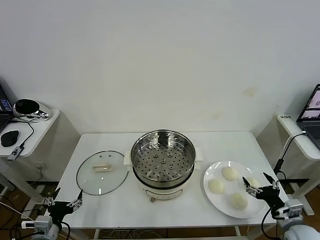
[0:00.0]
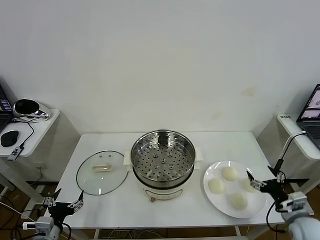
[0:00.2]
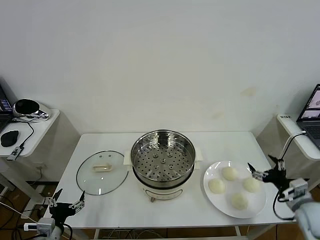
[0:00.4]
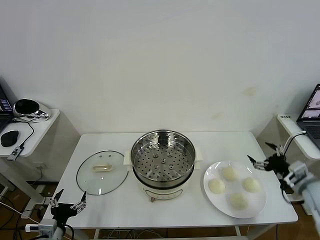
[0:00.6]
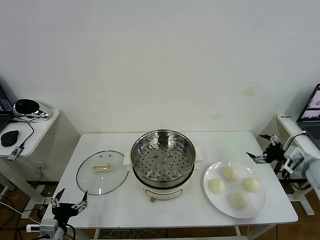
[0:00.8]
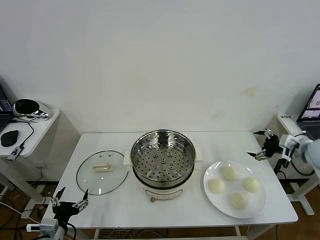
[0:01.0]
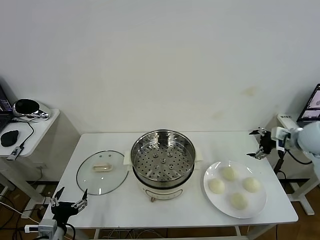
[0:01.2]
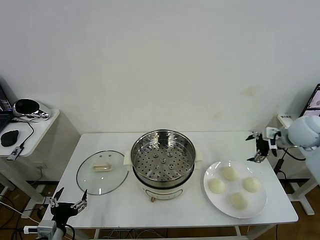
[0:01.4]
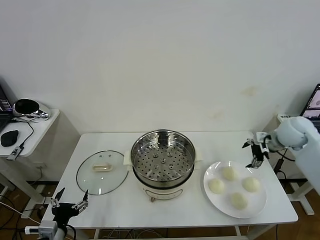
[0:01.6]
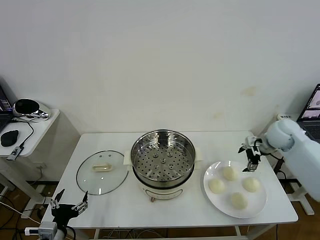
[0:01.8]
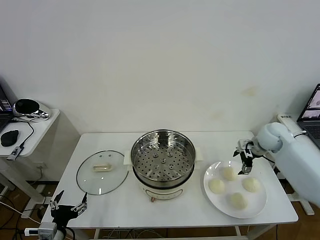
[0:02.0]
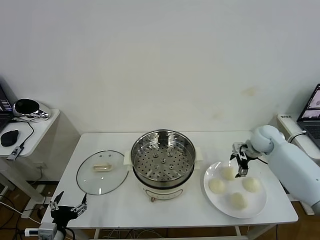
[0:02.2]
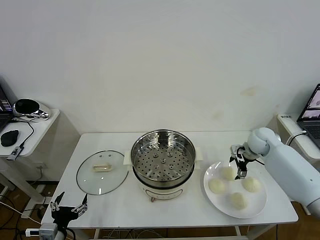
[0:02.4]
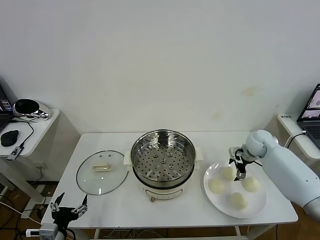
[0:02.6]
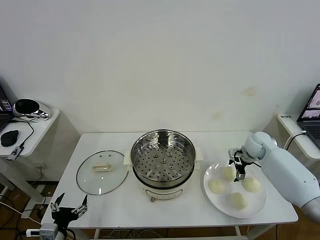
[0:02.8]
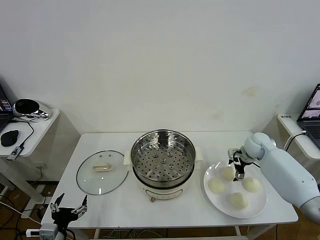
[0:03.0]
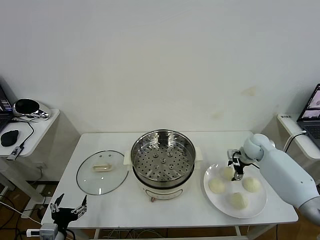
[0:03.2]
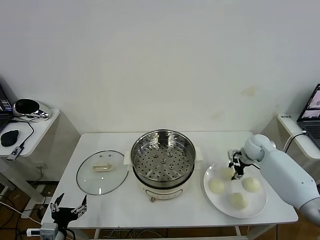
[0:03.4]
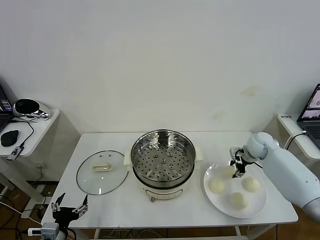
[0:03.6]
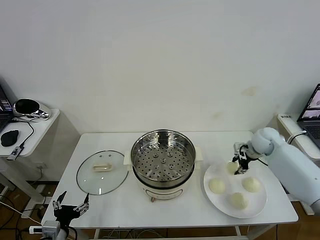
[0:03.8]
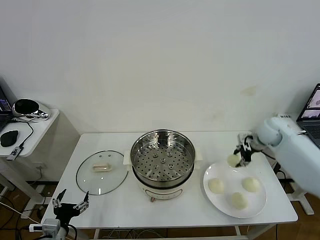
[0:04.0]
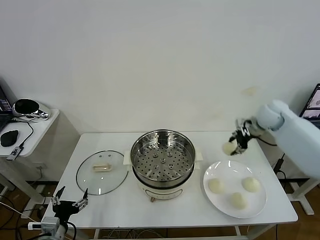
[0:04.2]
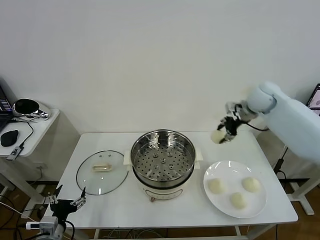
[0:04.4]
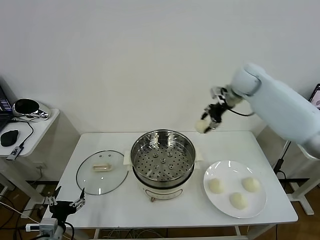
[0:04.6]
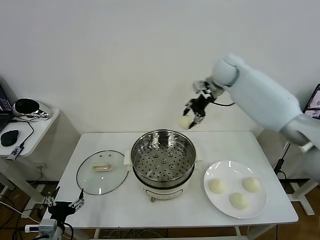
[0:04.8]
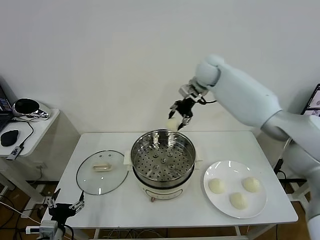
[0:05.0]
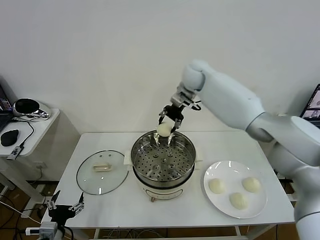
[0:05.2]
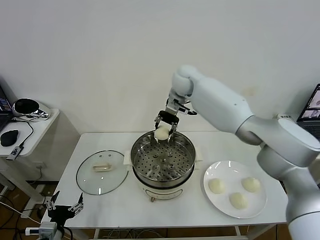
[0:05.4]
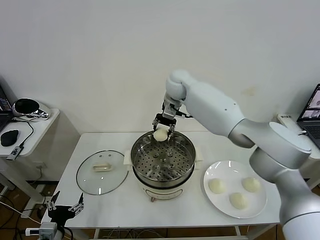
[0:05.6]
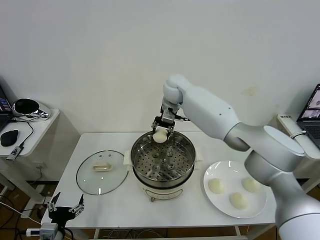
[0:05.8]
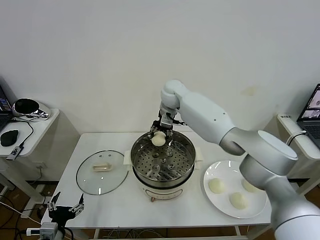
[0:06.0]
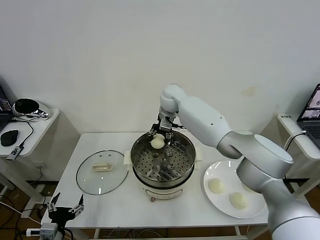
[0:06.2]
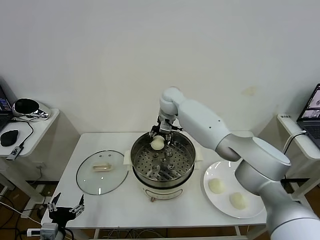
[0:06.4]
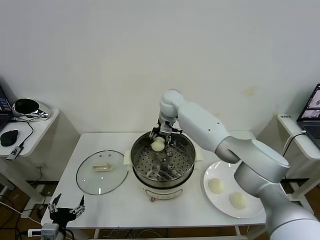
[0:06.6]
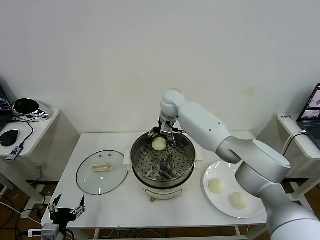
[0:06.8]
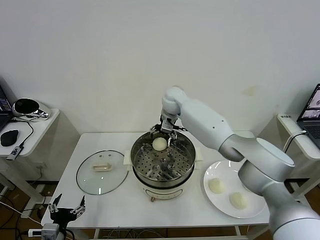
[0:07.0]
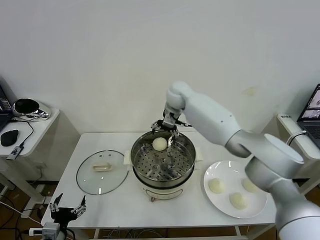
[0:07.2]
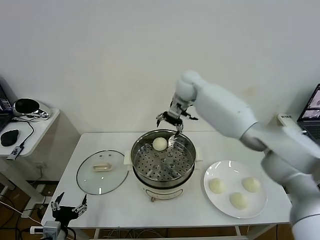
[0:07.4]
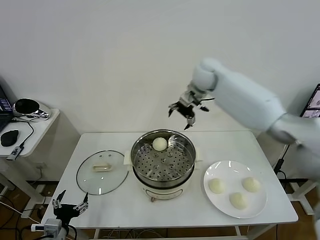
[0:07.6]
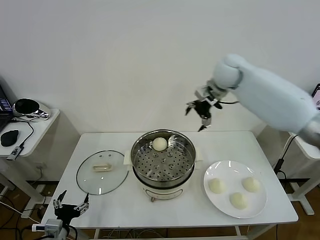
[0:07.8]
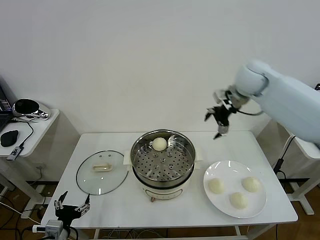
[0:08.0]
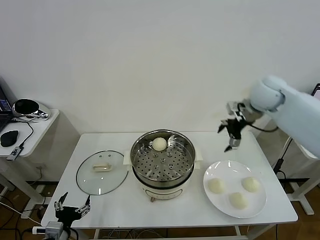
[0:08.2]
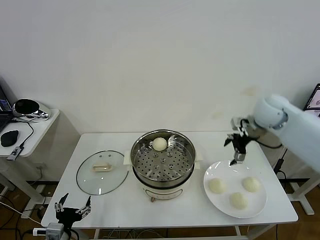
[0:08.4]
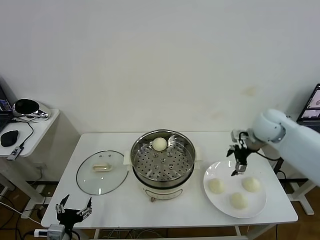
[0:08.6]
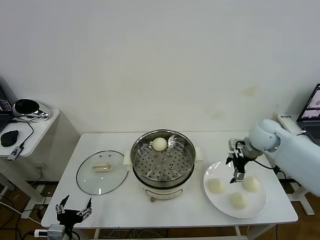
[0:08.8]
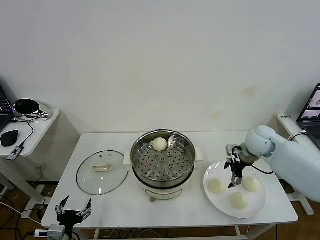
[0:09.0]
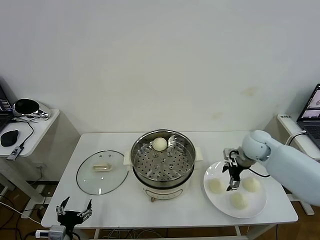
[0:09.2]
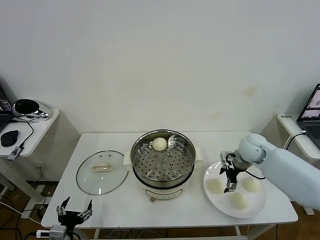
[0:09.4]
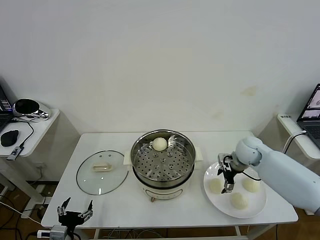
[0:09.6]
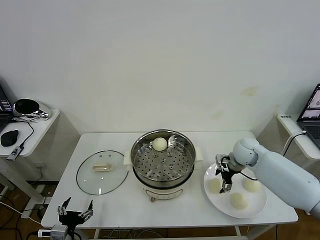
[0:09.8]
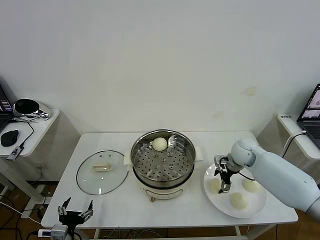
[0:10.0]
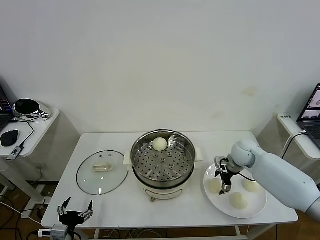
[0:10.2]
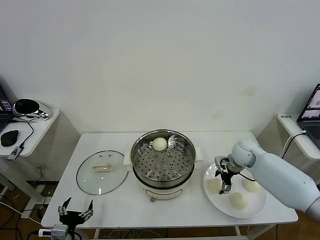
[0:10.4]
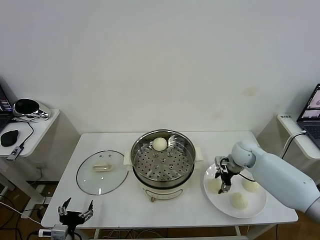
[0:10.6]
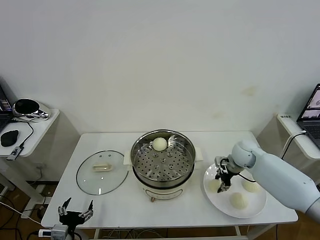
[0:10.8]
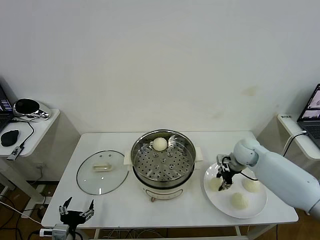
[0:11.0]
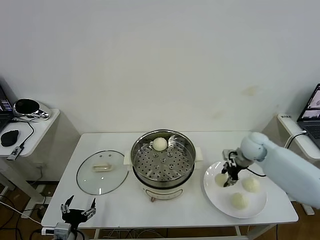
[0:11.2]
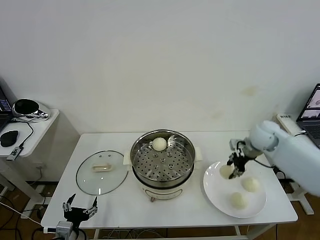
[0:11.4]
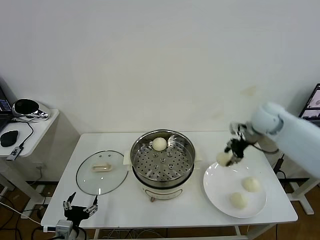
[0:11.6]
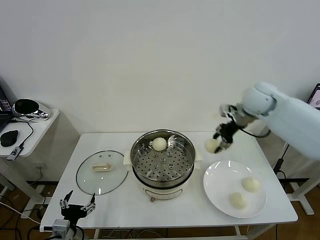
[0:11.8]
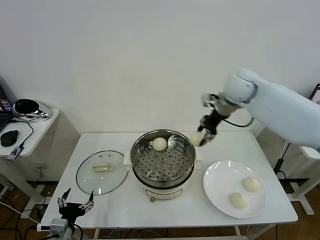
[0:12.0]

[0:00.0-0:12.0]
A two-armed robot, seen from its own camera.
Task of the whole recording: take steamed baozi put them in steamer then cover it.
Step, 0.0 to 3.4 s: Grasp the baozi in the plate with right gripper.
Step, 3.6 to 7.0 s: Place the baozi on the steamer with right gripper.
Step, 7.2 to 10.8 s: Grasp the baozi in the plate with right gripper.
1.6 to 3.0 s: The right gripper goes some 10 cm downward.
3.0 to 4.4 s: The right gripper moves upward, about 25 cm, and closes its fingers.
4.4 to 6.0 s: The right gripper moves to the left, roughly 25 cm.
6.0 to 7.6 s: The right gripper travels to the right and upward by roughly 20 cm, and opens its fingers.
7.6 to 9.0 s: The right gripper heads downward, to the right and backward, covering about 30 cm.
9.0 to 10.4 s: The right gripper heads downward, covering approximately 5 cm.
10.4 to 12.0 s: The right gripper is displaced upward and to the left by some 30 cm, and closes.

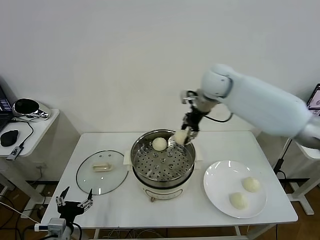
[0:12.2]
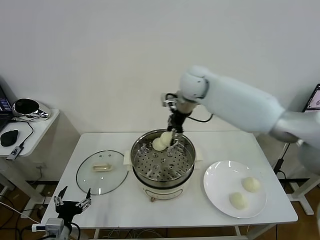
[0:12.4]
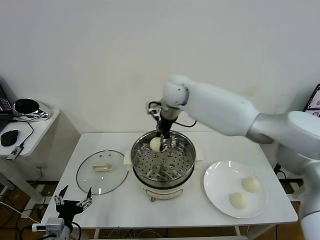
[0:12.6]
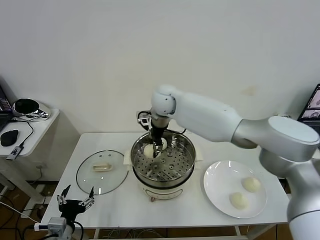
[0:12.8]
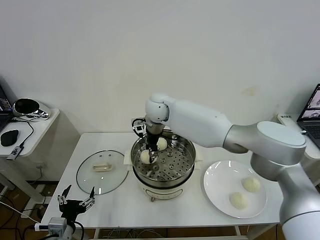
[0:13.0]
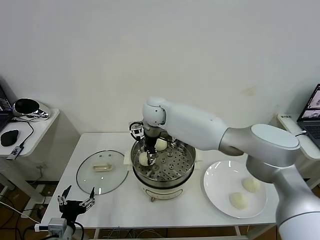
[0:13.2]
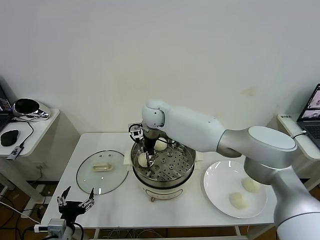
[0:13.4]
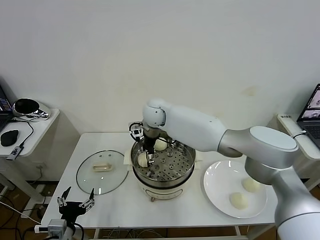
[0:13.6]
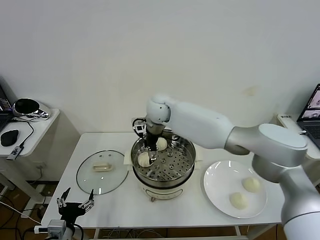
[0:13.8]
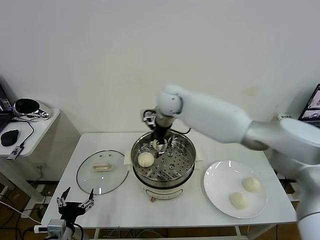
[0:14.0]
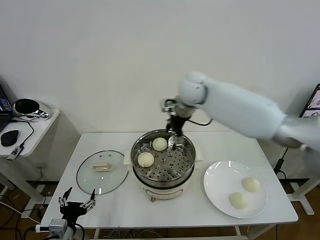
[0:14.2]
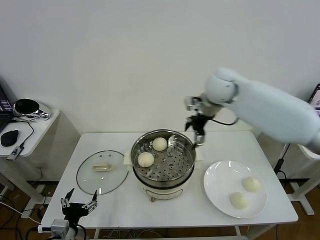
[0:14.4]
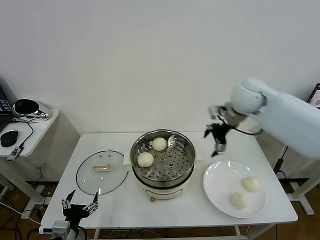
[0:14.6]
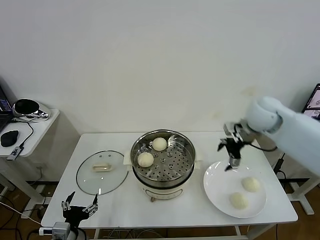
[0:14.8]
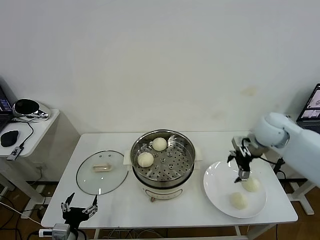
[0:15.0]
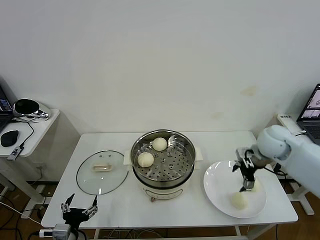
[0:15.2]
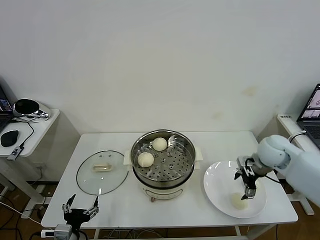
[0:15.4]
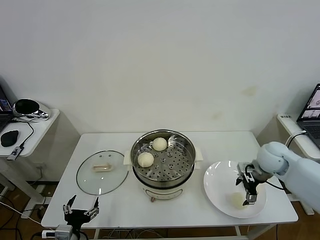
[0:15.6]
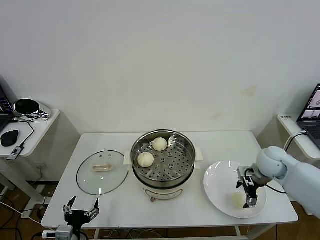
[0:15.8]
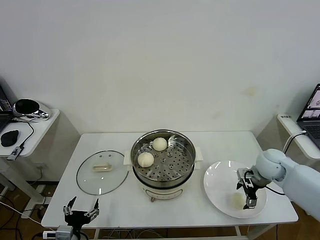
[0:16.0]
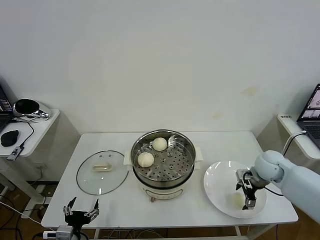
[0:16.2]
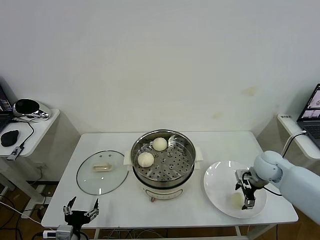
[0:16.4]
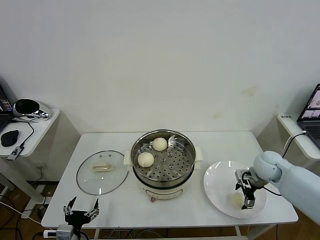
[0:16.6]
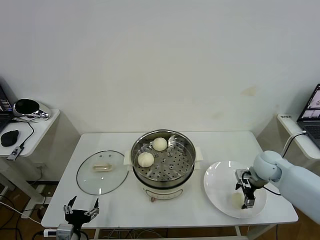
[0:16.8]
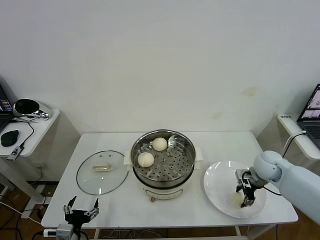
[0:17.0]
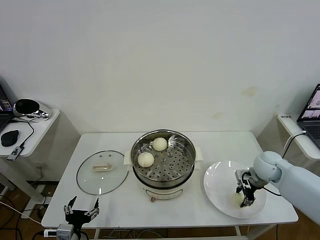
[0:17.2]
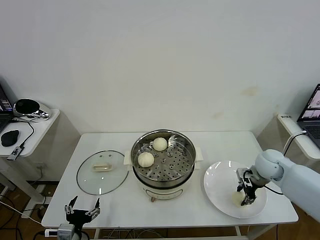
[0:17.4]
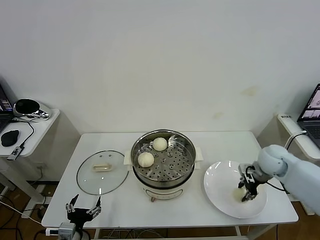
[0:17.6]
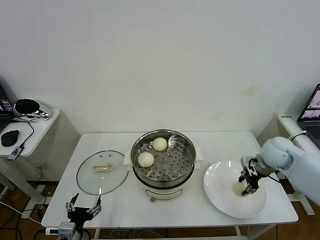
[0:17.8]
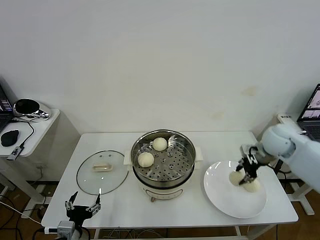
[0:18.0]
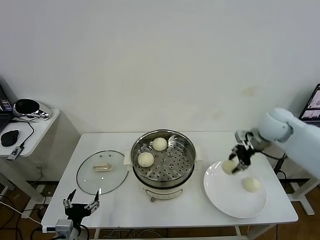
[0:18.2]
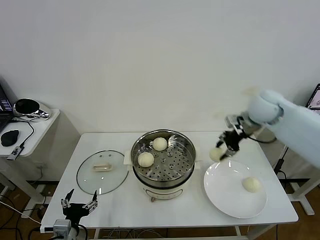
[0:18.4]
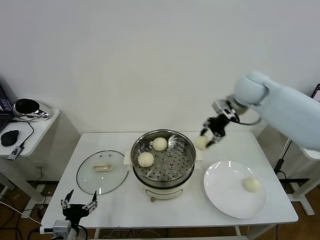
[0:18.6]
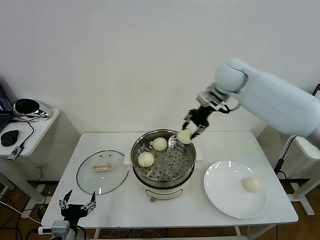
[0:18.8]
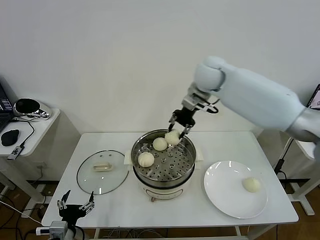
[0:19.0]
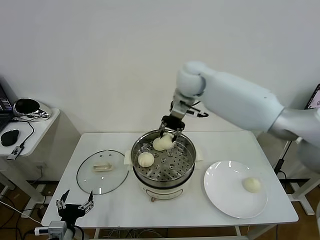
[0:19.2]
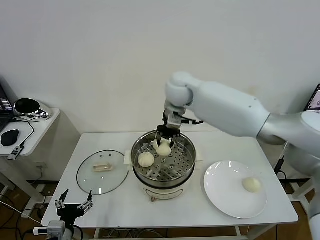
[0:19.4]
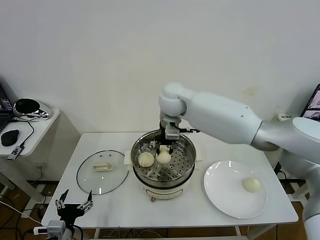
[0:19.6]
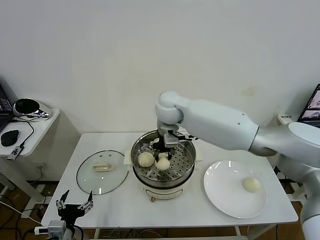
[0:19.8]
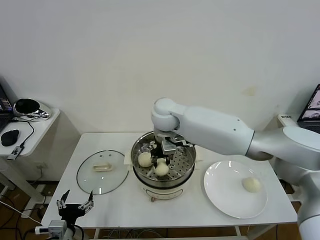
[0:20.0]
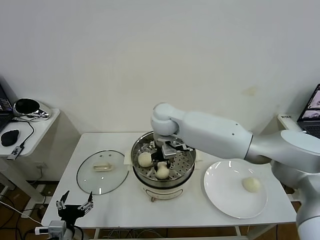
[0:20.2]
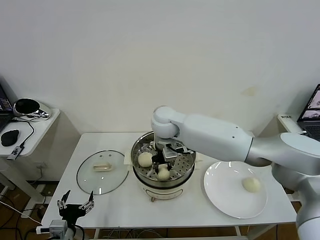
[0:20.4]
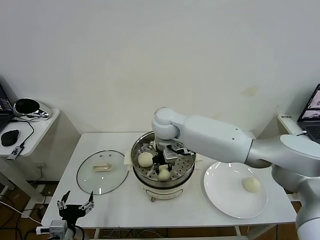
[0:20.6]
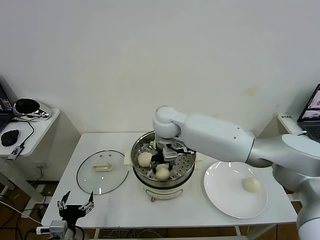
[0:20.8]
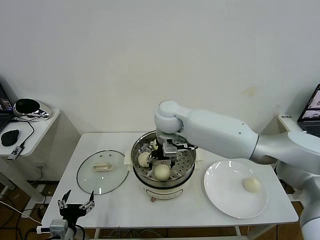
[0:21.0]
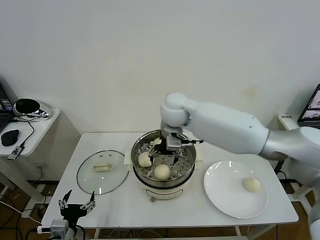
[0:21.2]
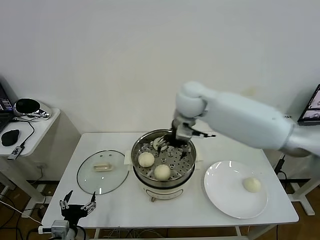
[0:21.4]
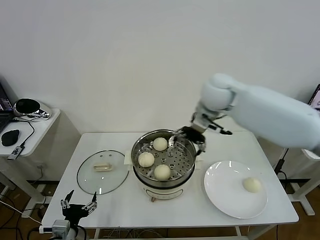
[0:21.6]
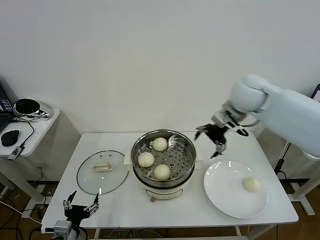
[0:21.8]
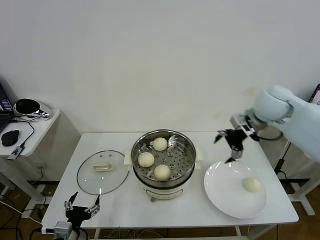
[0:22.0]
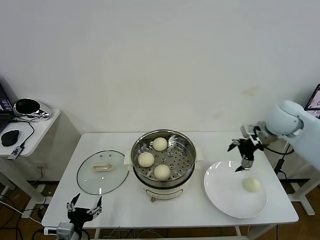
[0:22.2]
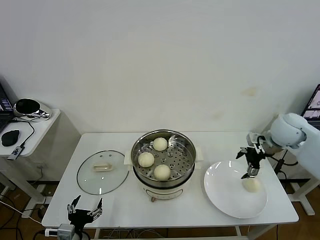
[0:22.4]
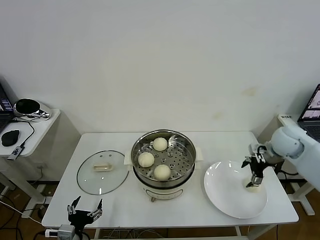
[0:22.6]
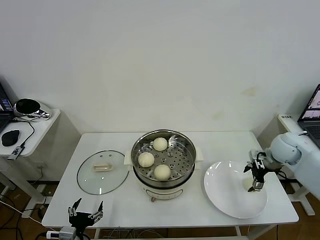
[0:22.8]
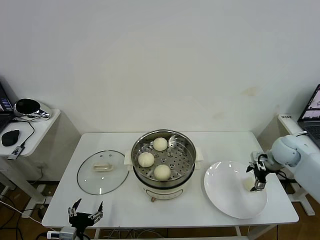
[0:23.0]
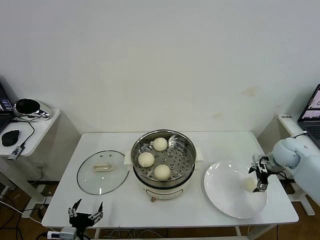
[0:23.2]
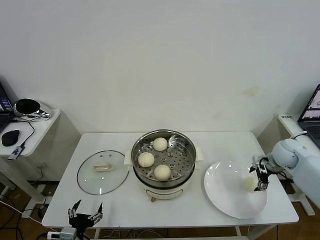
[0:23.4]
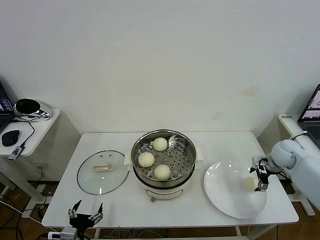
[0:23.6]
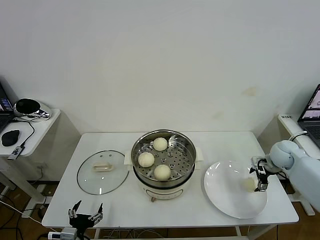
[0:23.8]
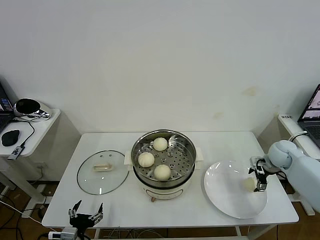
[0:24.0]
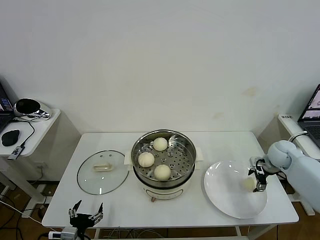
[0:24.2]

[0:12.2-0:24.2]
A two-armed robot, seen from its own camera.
Task of the whole recording: take steamed baozi put them in steamer then cover it.
Step, 12.2 to 13.8 s: Place the baozi on the steamer with right gripper.
Step, 14.0 to 17.2 s: Grasp the baozi in the plate with right gripper.
Step, 17.4 to 21.0 s: Place the baozi on the steamer with right gripper.
12.2 to 13.8 s: The right gripper travels to the left and downward by some 15 cm, and opens its fingers.
13.8 to 15.2 s: The right gripper travels to the right by some 35 cm.
15.2 to 16.6 s: The right gripper heads downward, covering about 10 cm.
16.6 to 18.2 s: The right gripper shifts about 15 cm upward, and closes up.
18.2 to 19.8 s: The right gripper goes about 30 cm to the left.
19.8 to 21.2 s: The right gripper opens.
21.2 to 22.6 s: The right gripper shifts roughly 35 cm to the right.
22.6 to 24.2 s: The right gripper travels downward by roughly 10 cm.
